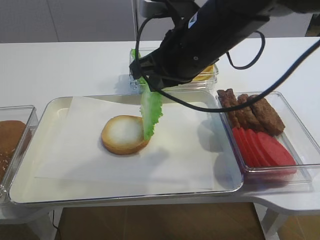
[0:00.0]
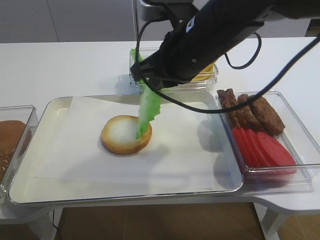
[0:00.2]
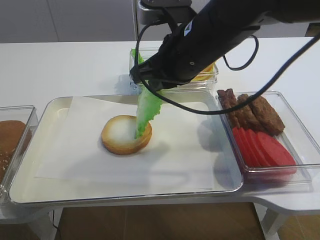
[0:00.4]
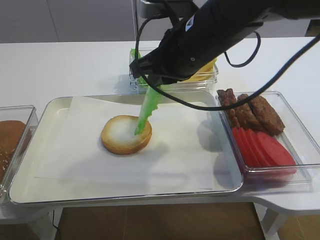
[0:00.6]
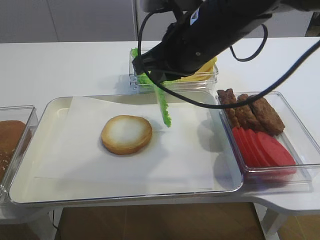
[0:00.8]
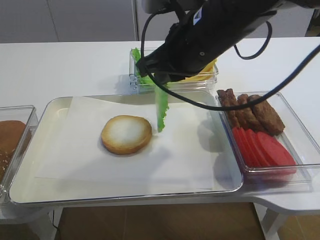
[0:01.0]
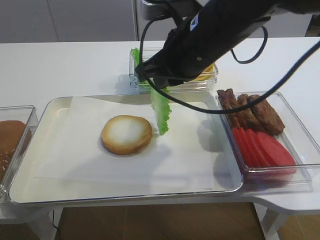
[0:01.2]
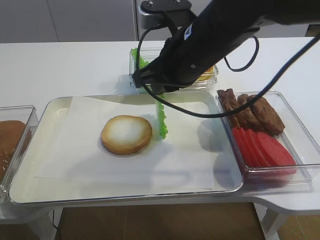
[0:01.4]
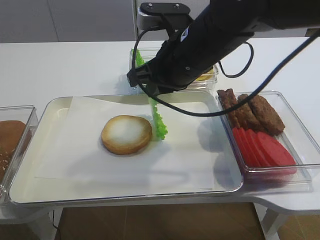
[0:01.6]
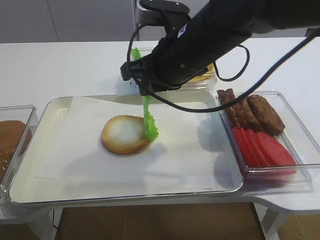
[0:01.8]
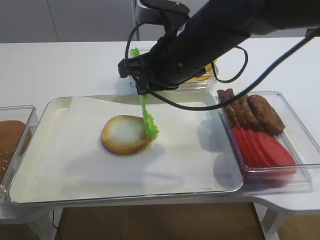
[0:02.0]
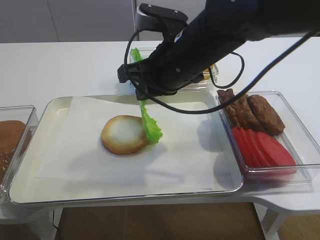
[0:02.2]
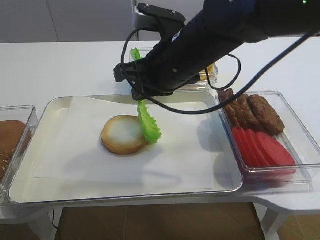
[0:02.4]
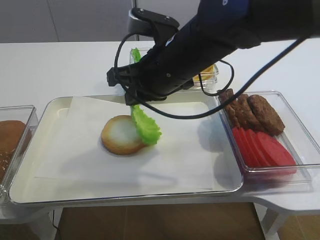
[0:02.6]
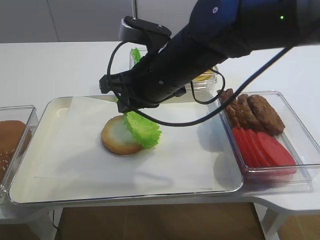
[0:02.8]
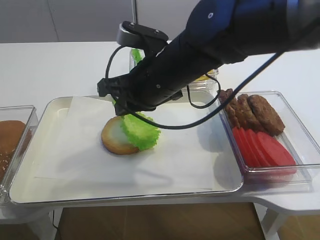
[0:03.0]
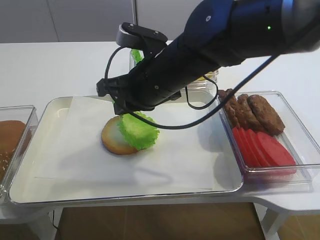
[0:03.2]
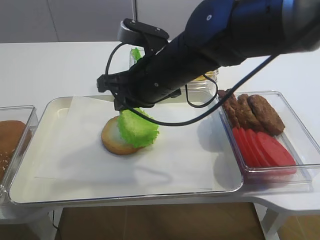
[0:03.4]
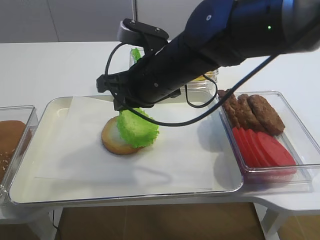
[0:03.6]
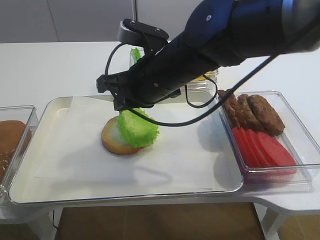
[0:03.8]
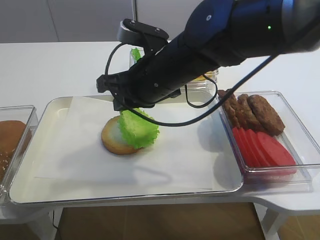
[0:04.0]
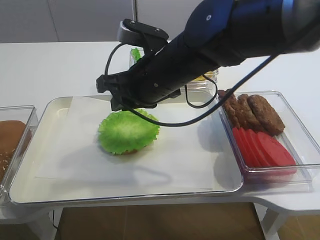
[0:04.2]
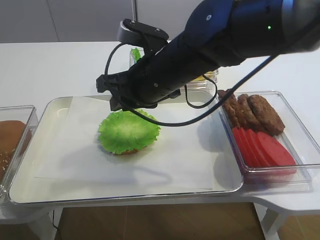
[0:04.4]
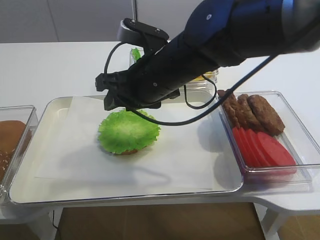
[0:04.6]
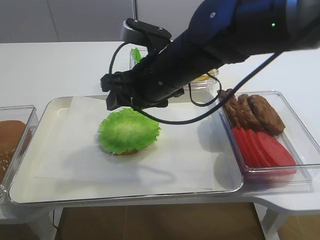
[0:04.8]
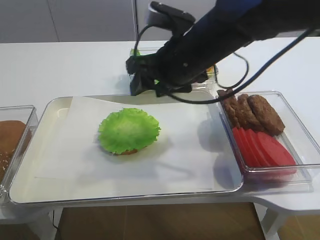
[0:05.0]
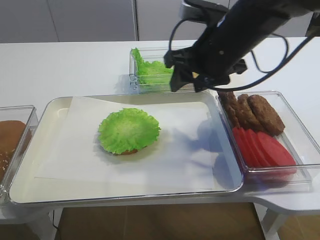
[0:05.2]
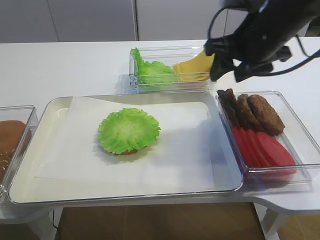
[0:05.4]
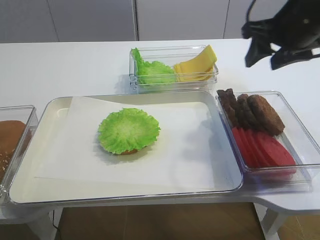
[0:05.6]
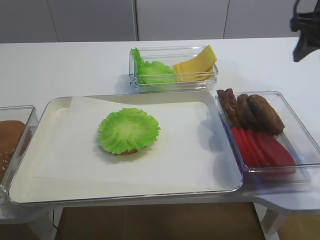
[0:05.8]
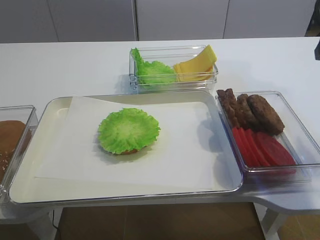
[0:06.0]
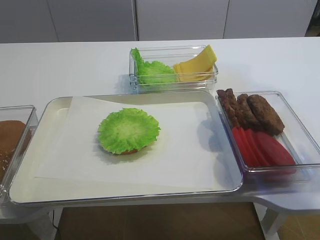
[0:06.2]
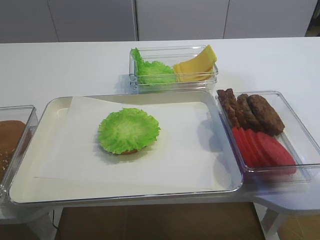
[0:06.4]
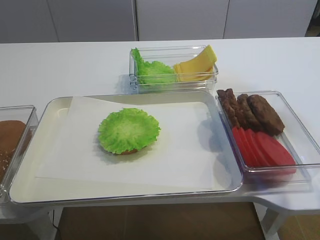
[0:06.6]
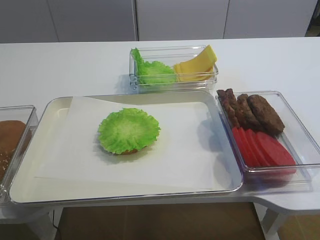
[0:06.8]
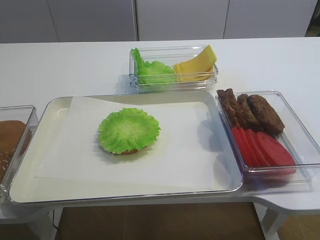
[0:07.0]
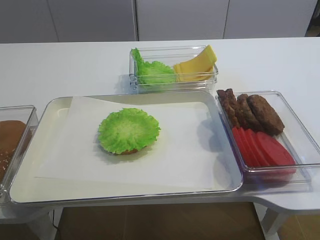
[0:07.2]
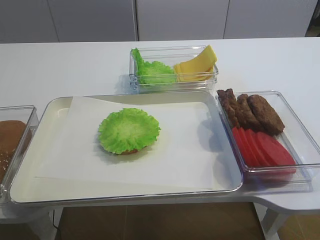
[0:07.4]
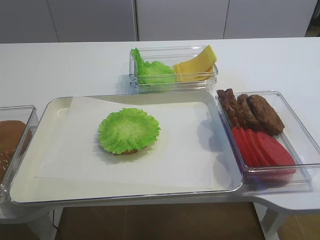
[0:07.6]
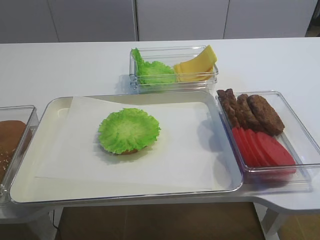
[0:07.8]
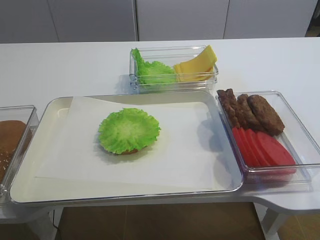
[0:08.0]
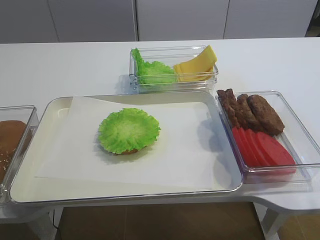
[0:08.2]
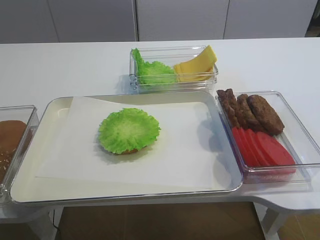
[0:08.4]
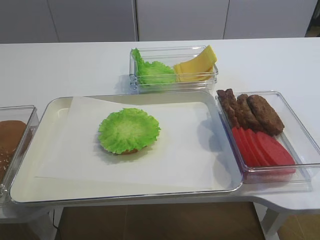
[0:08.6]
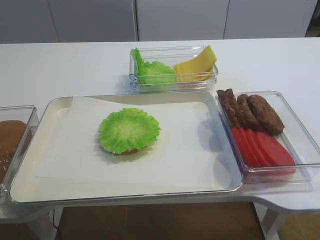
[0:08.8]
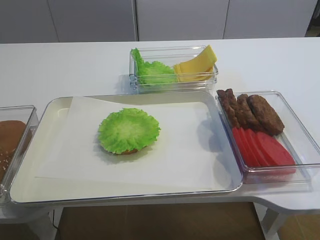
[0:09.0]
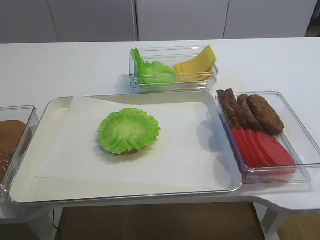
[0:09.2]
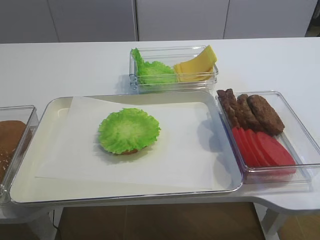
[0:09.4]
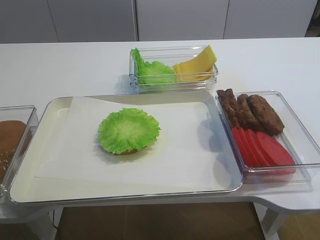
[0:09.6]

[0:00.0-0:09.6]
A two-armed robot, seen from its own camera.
Step, 0:00.0 to 0:04.8: Place the lettuce leaf on the bread slice with the right gripper.
0:00.0 to 0:01.6: The grippers make only small movements.
0:01.6 to 0:03.2: There are only small adjustments of the grippers.
0:03.2 to 0:04.8: The right gripper opens its fingers.
0:04.8 to 0:06.4: The right gripper is displaced to the right by about 25 cm.
0:06.4 to 0:08.0: The right gripper shifts roughly 25 cm backward.

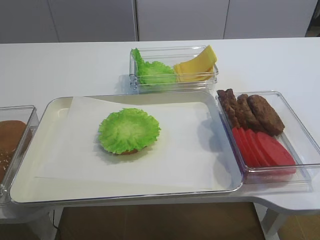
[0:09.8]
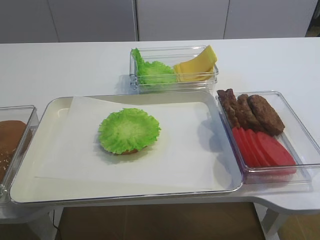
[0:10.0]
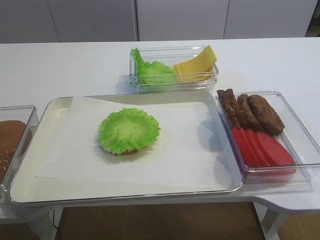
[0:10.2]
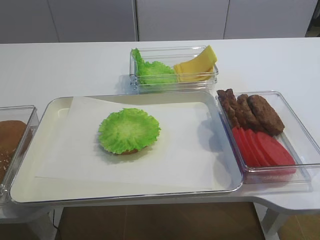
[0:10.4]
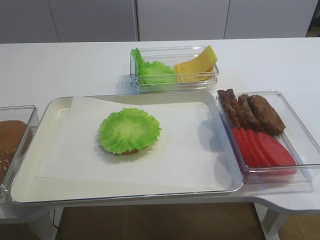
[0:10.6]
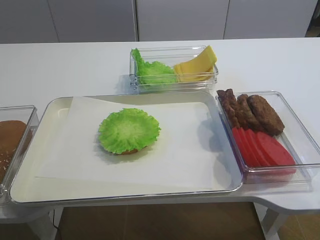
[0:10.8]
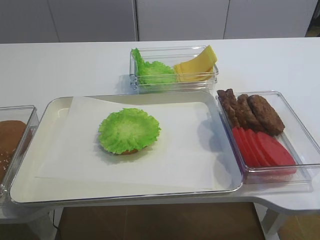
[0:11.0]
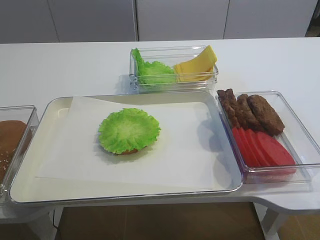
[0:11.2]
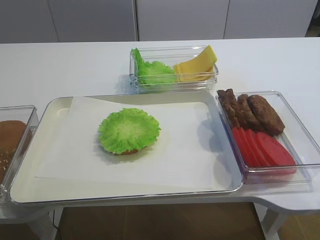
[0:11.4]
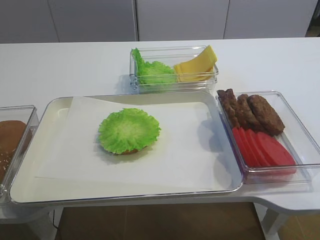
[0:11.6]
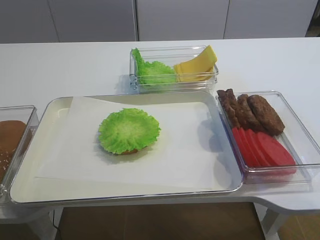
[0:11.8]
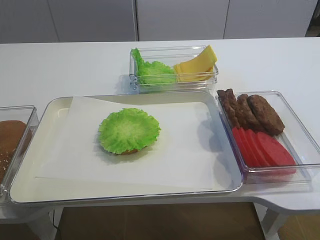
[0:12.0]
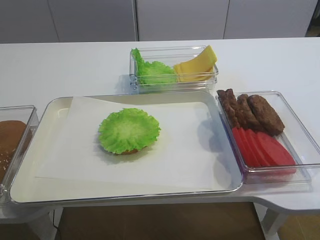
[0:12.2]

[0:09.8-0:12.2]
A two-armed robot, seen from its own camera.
0:09.8 to 0:11.0: Both grippers stay put.

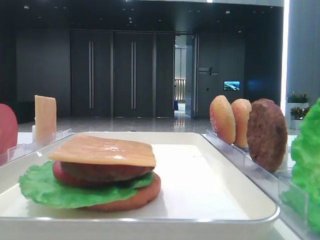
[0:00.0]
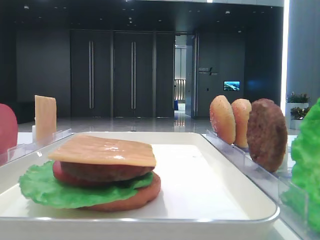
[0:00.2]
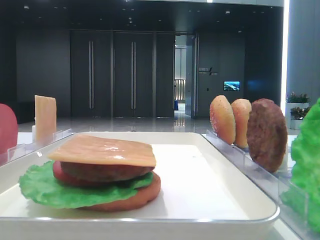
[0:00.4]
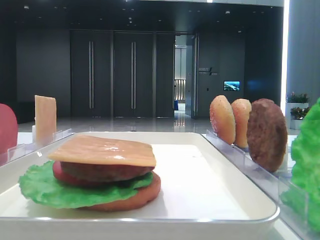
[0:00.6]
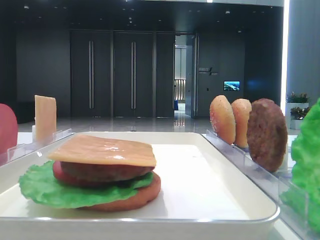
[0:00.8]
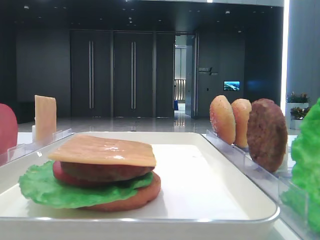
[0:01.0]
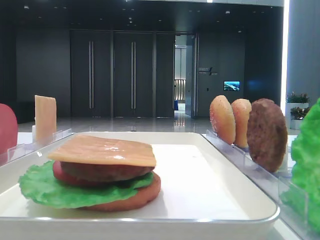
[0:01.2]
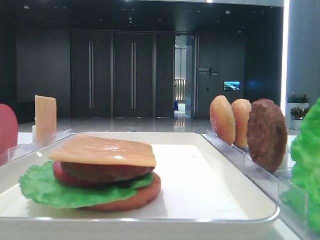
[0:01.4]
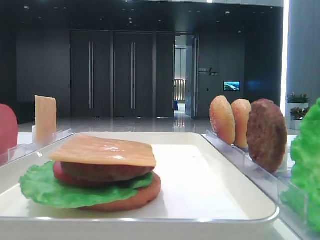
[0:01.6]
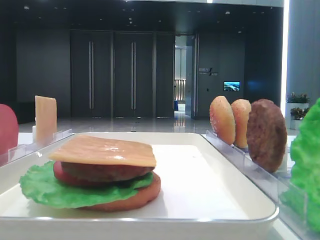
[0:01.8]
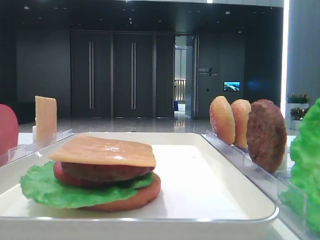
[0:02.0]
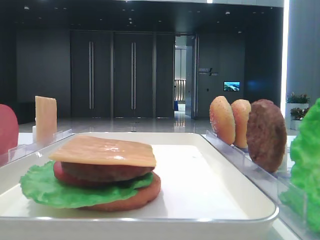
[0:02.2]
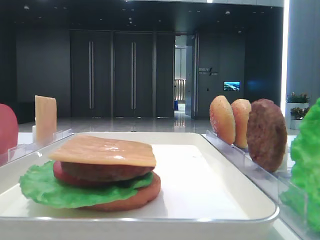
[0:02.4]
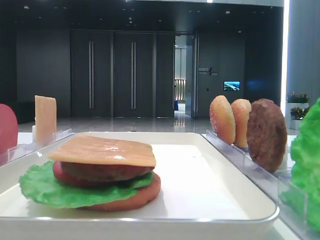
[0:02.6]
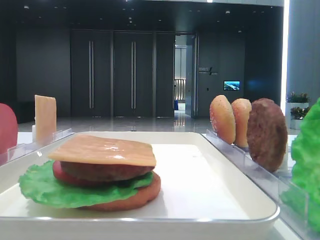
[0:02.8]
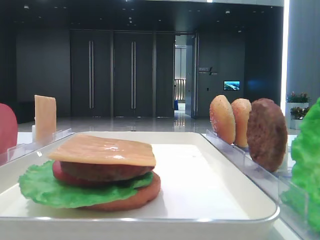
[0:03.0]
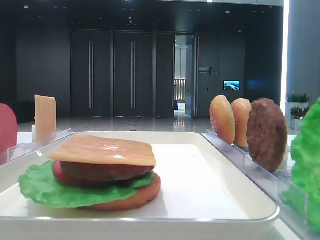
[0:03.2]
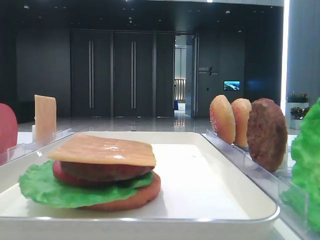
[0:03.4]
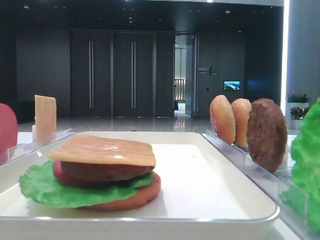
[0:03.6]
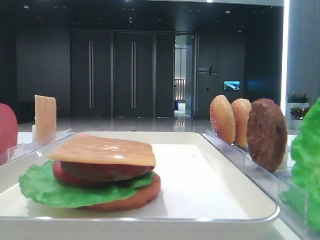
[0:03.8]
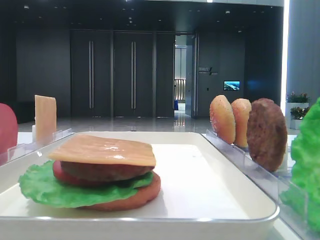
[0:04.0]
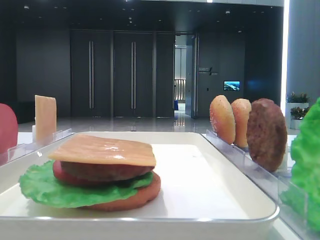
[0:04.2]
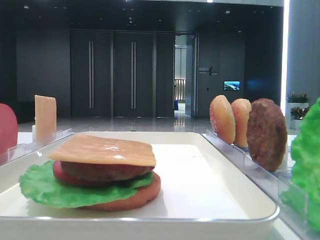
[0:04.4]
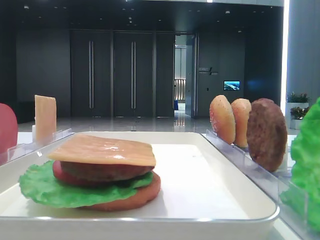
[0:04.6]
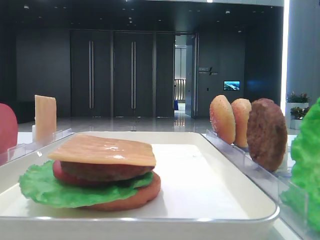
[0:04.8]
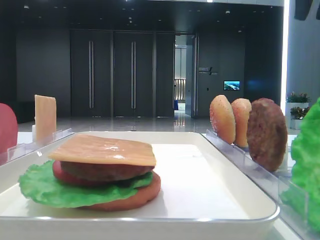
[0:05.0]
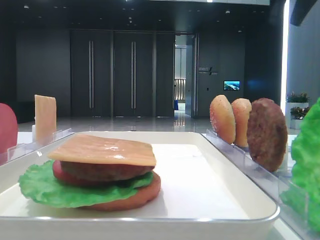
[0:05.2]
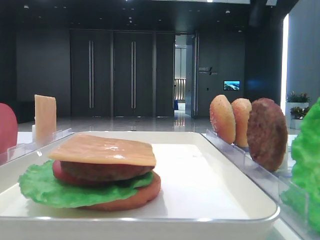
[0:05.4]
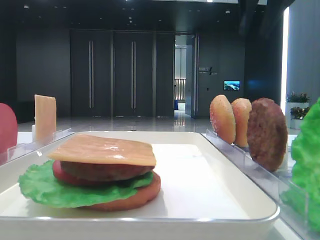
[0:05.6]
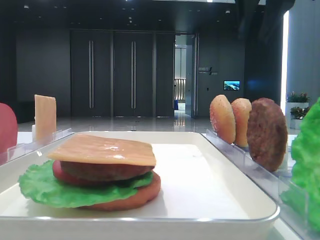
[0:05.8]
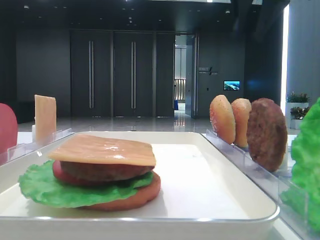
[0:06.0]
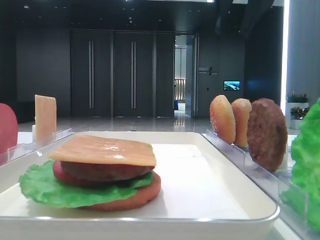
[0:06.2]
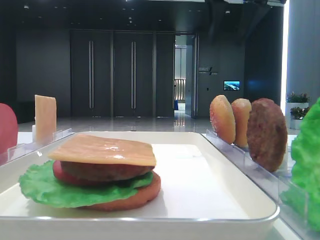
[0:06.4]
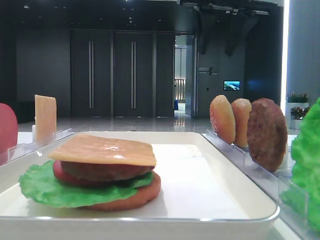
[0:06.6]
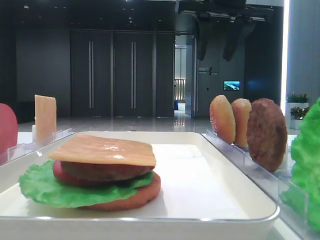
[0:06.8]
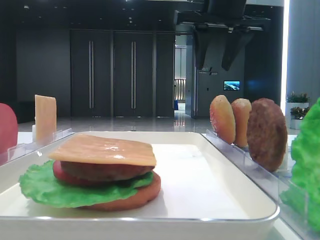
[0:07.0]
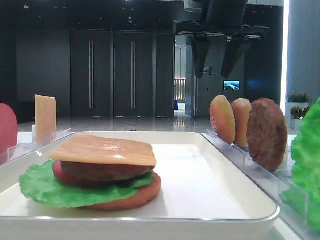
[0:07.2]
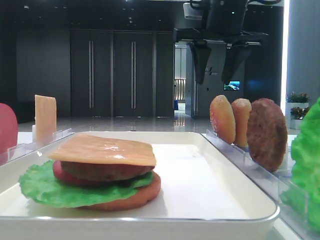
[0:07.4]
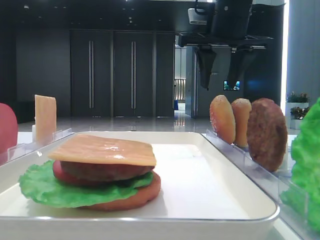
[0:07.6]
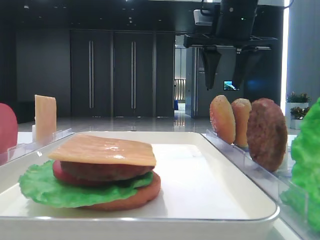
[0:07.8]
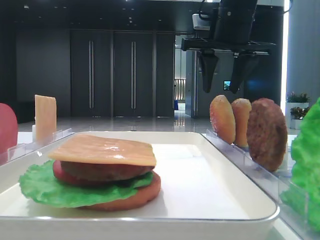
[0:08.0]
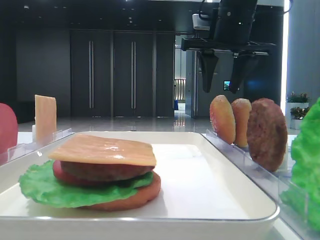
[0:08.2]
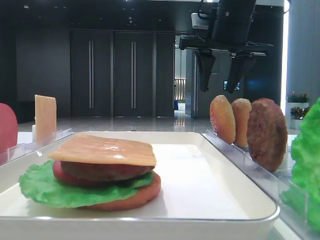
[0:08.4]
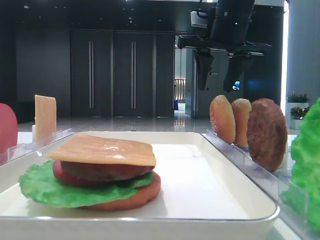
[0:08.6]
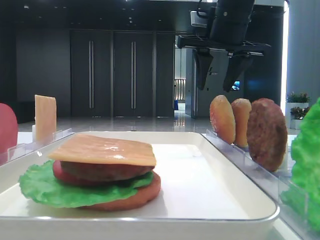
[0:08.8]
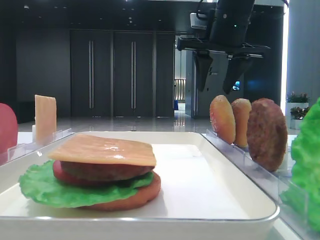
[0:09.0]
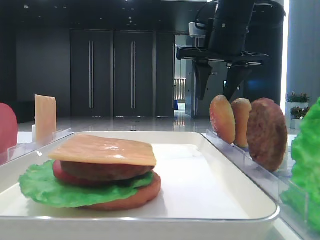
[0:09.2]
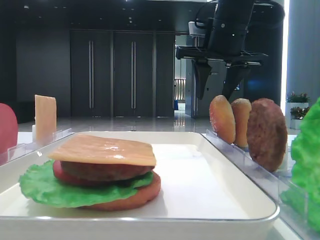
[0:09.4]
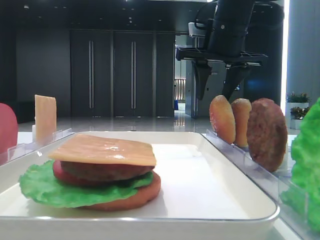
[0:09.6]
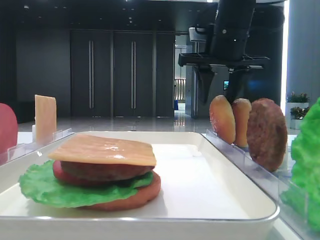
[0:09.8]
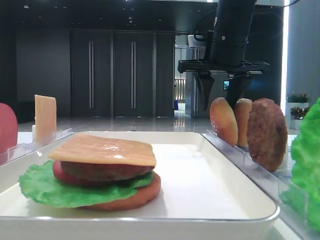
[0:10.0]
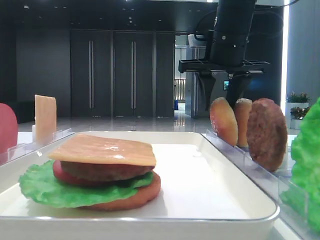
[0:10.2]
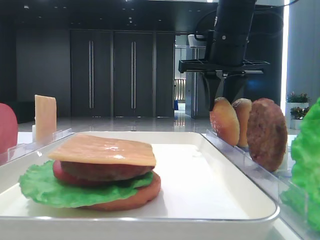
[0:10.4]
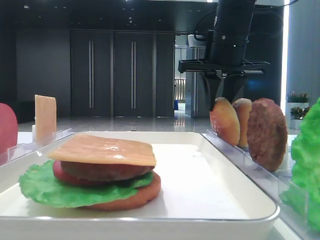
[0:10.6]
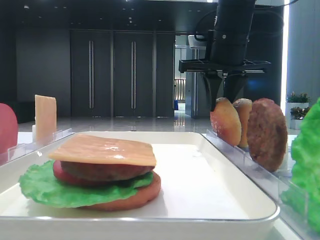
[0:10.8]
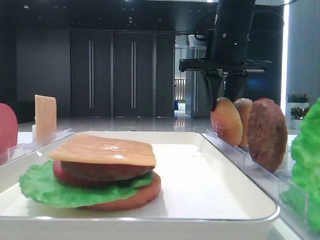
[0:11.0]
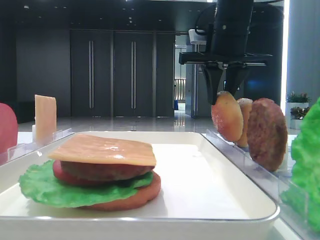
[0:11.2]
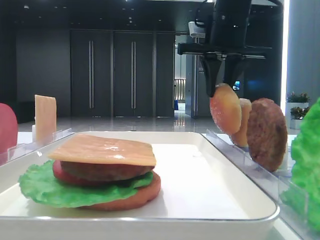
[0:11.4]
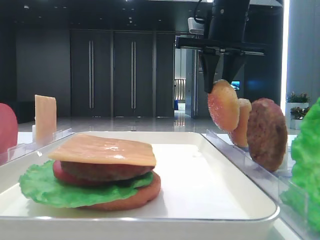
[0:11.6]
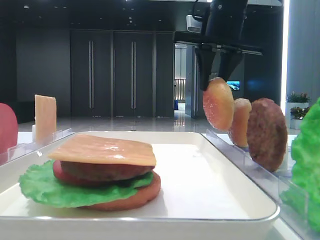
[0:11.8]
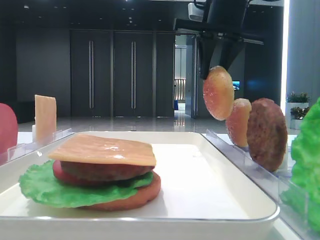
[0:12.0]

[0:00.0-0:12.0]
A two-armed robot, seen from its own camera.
Step, 0:00.0 to 0:10.4: Pick up the top bread slice with the right hand.
0:06.0 to 0:07.6: The right gripper goes approximately 10 cm downward, and opens.
0:07.6 to 0:09.0: The two grippers keep their place.
0:09.0 to 0:10.4: The right gripper closes up.
0:10.4 to 0:12.0: The right gripper travels upward by some 5 cm.
